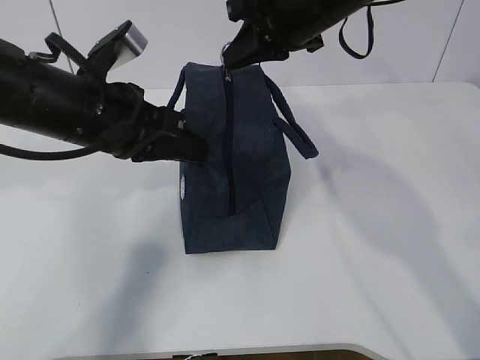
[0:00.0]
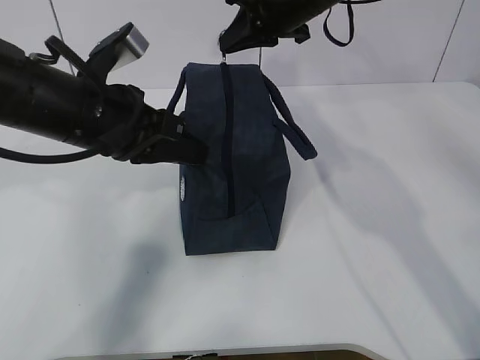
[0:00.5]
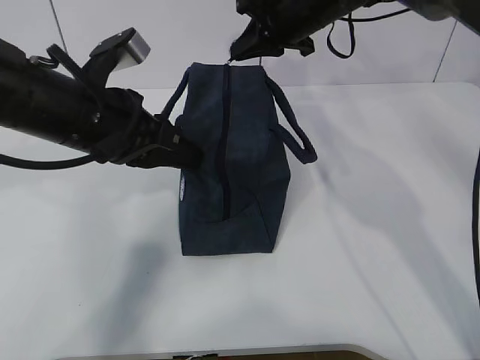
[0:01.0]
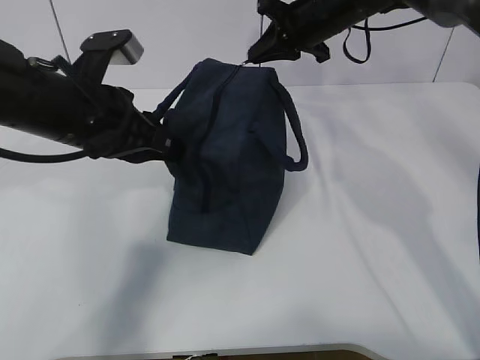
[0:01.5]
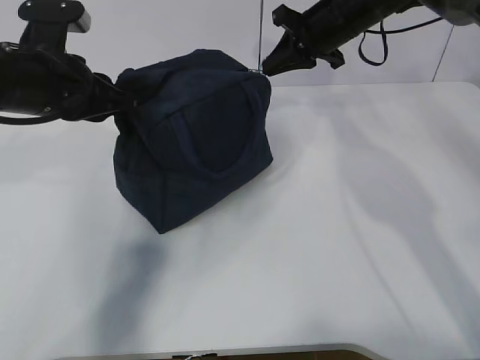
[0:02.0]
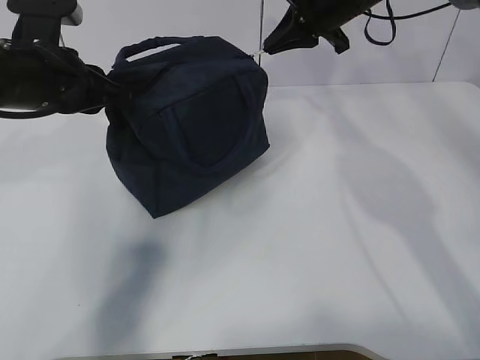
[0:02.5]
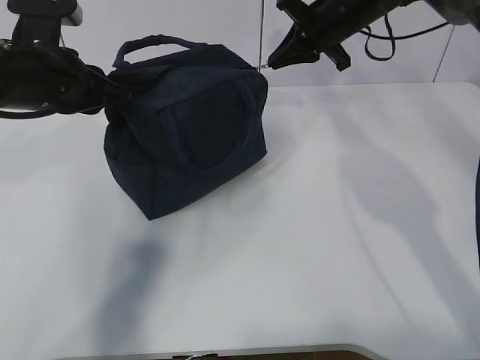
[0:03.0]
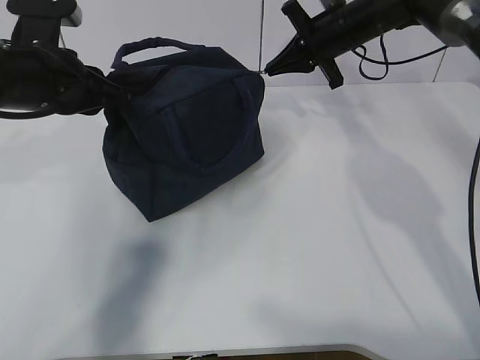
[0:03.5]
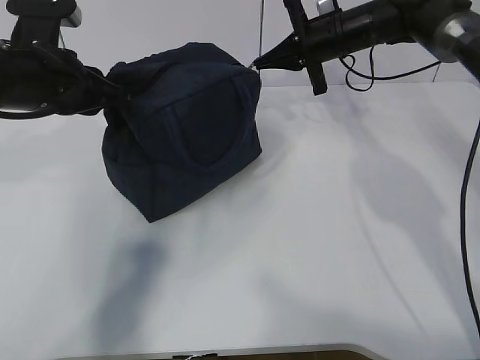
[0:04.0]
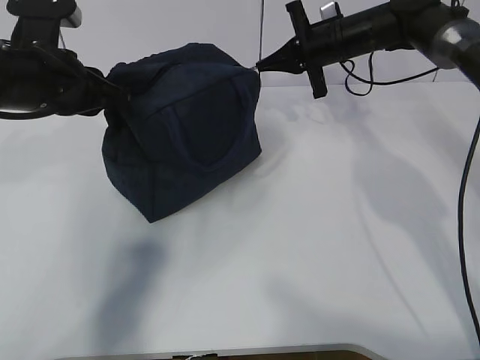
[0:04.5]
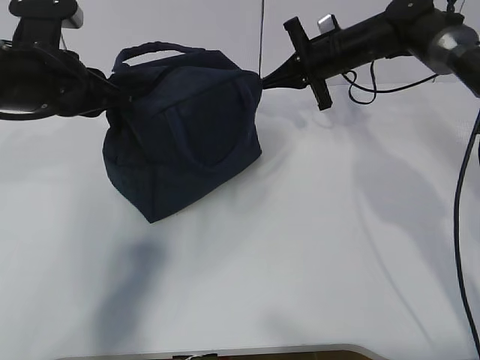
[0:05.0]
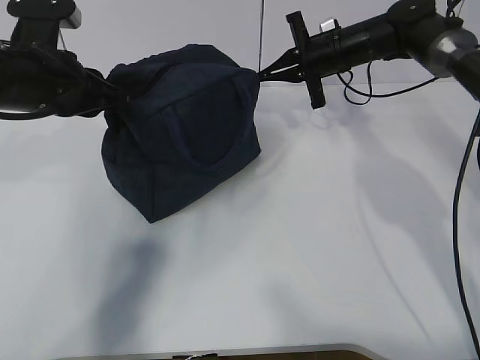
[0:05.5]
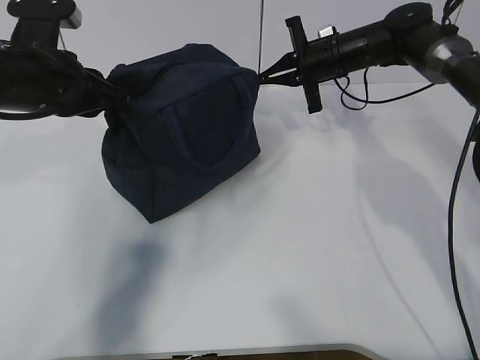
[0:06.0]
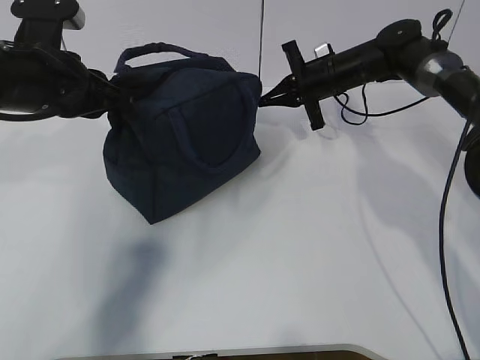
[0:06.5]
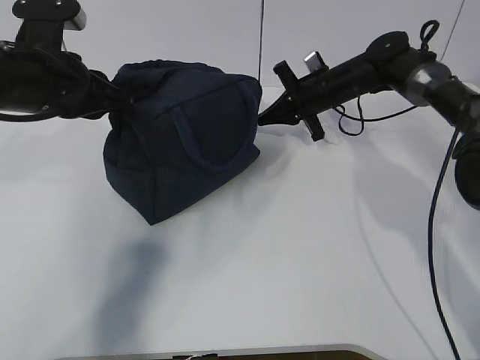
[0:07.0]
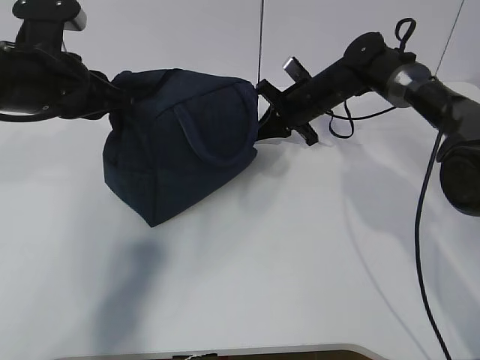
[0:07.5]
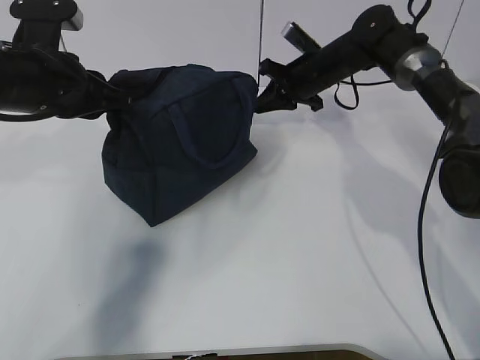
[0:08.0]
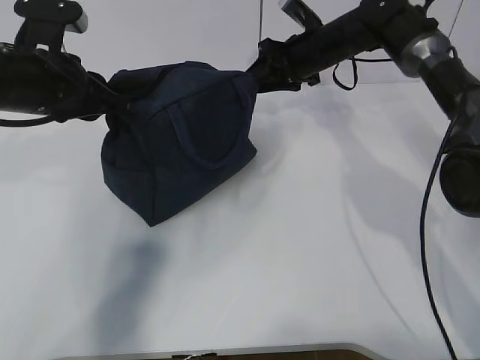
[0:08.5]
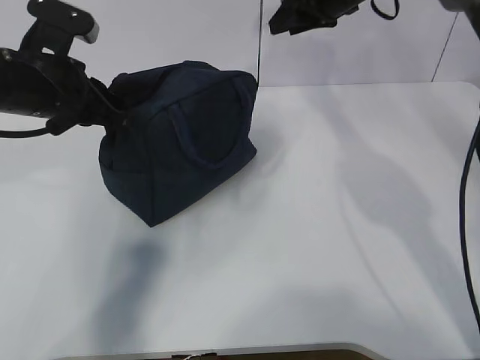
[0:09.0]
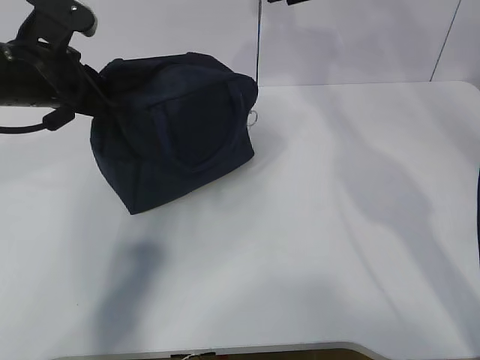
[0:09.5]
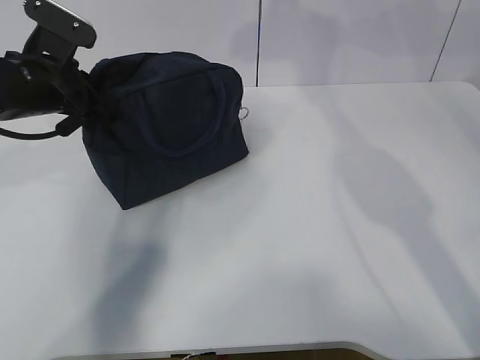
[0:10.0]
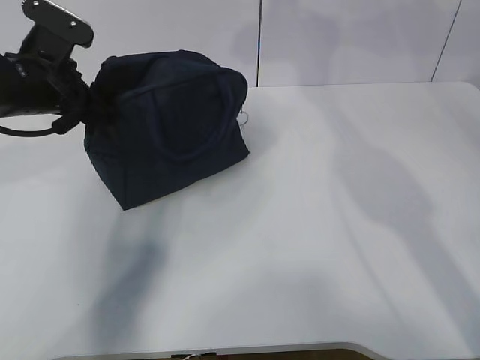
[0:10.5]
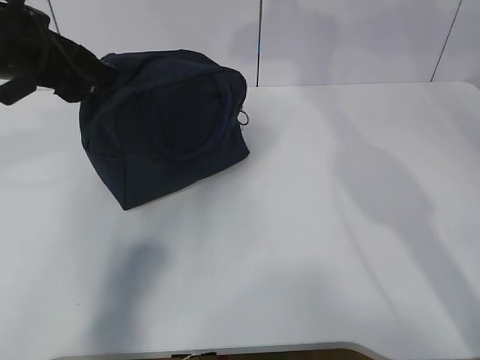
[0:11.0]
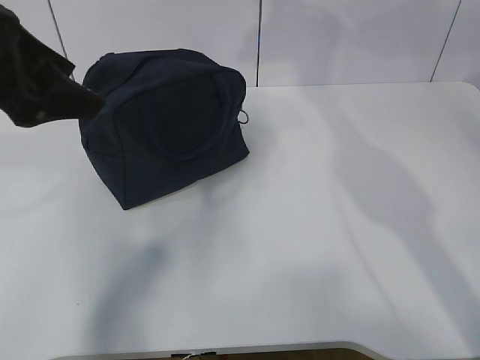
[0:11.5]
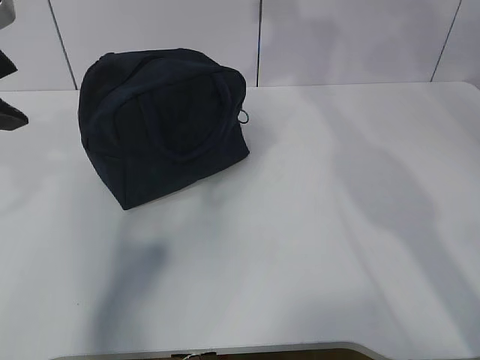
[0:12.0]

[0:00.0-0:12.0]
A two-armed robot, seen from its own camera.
0:00.0 to 0:02.0: The right gripper moves forward, to the right and downward, about 15 cm; the left gripper shifts some 5 cm to the left.
0:04.0 to 0:06.0: The grippers make only small movements.
0:08.0 to 0:10.0: The right gripper moves upward, approximately 20 cm, and opens up.
0:10.0 to 0:12.0: The left gripper is displaced upward and backward by roughly 15 cm, and opens up.

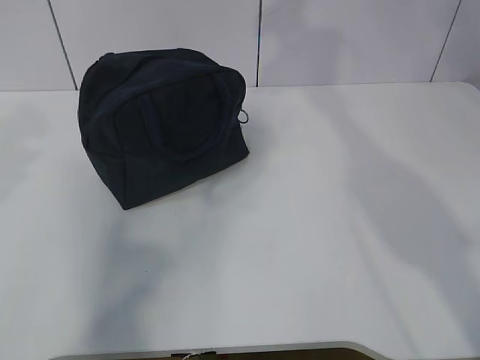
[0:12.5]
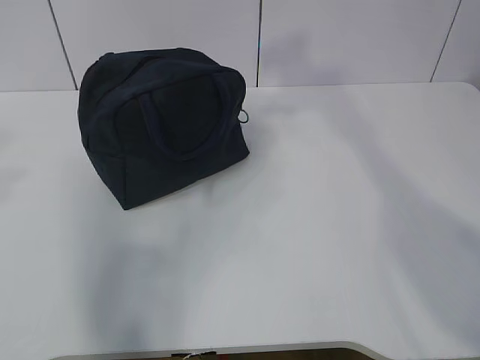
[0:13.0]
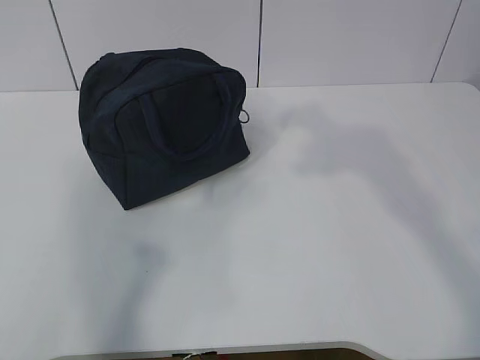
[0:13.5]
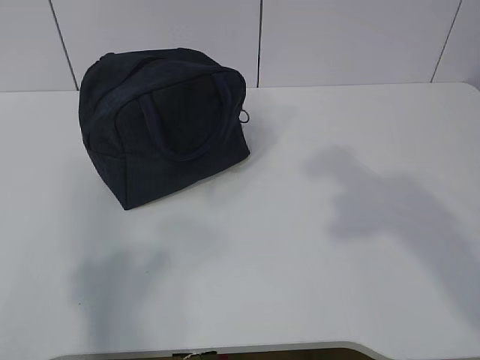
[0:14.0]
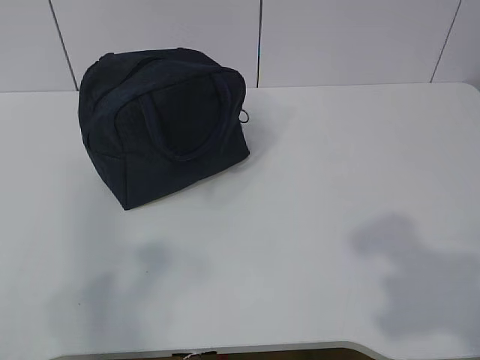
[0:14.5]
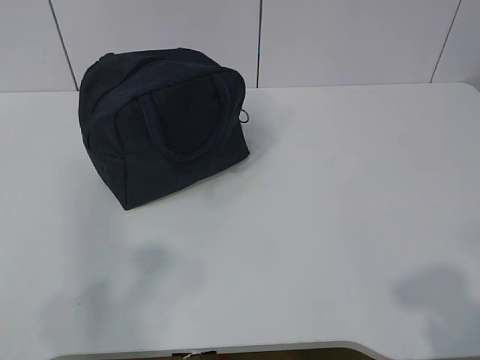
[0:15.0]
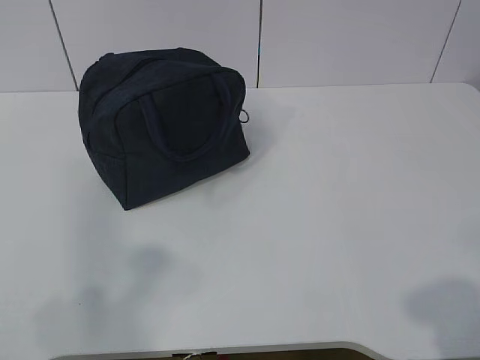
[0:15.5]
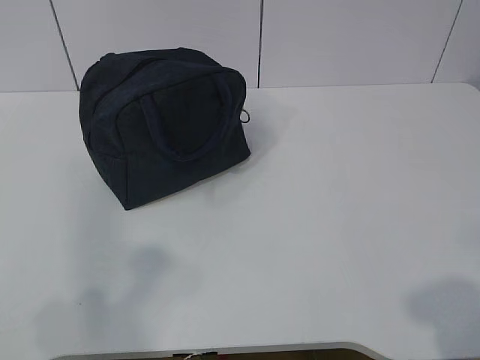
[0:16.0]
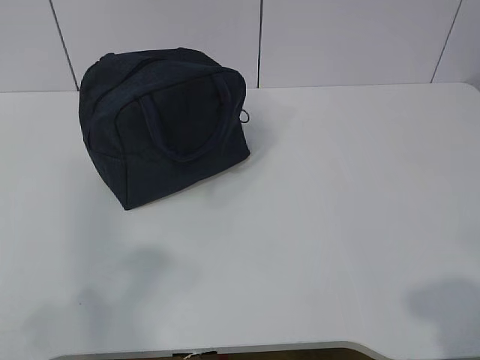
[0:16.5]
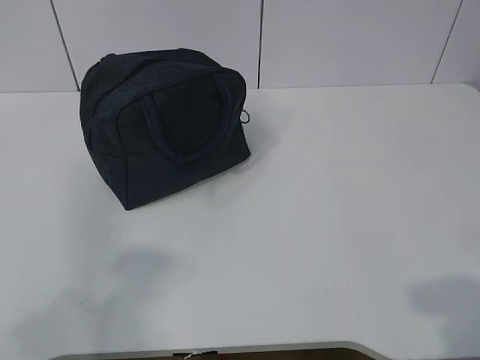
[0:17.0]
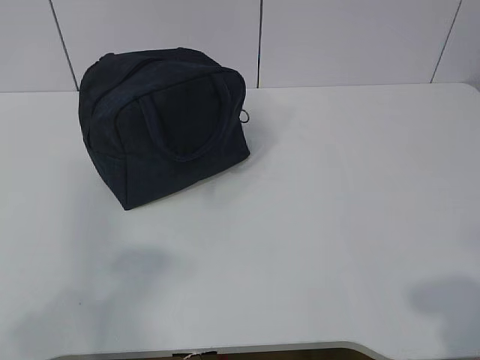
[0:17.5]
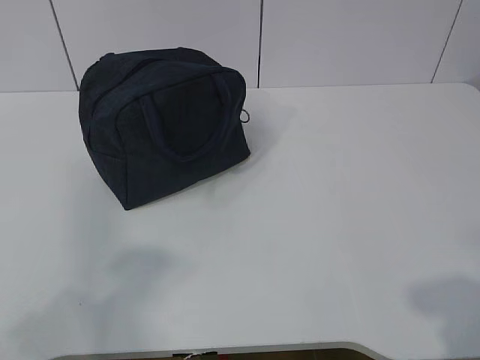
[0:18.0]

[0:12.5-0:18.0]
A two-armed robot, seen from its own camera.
0:12.5 to 0:14.5: The right gripper travels backward by about 35 cm. The left gripper is displaced backward and downward by some 25 cm.
0:14.5 to 0:16.0: The right gripper shifts approximately 10 cm downward and backward.
